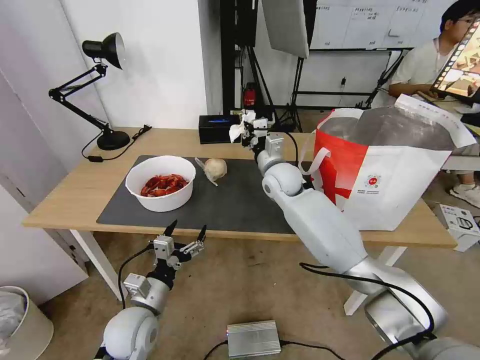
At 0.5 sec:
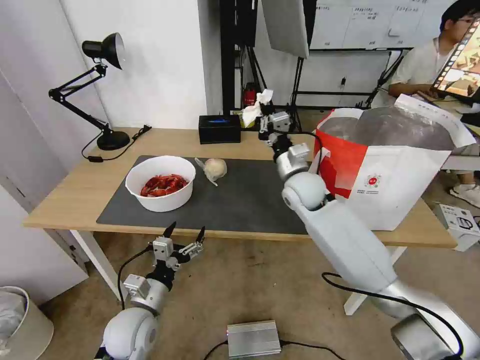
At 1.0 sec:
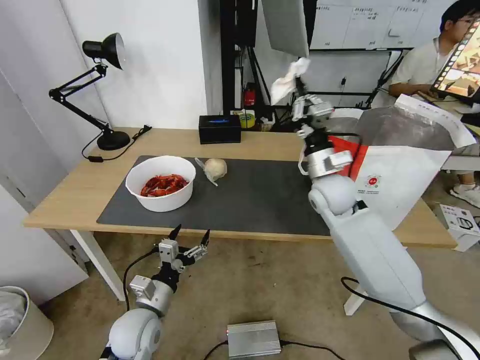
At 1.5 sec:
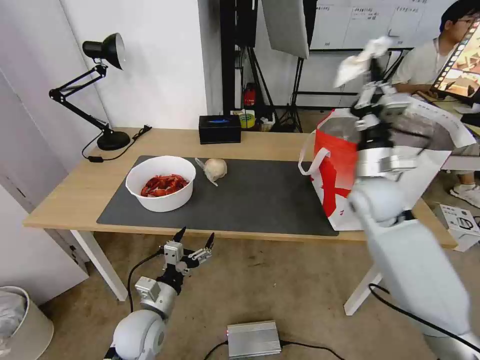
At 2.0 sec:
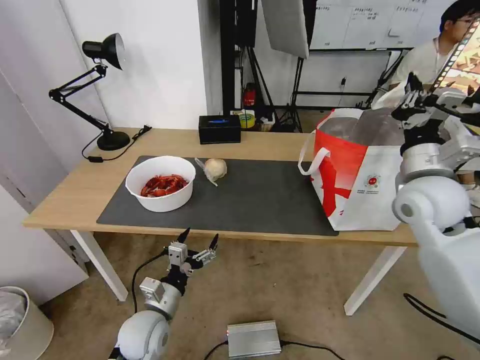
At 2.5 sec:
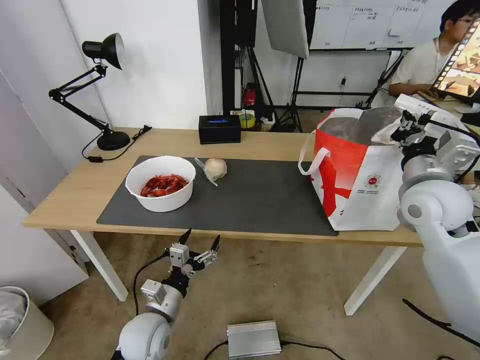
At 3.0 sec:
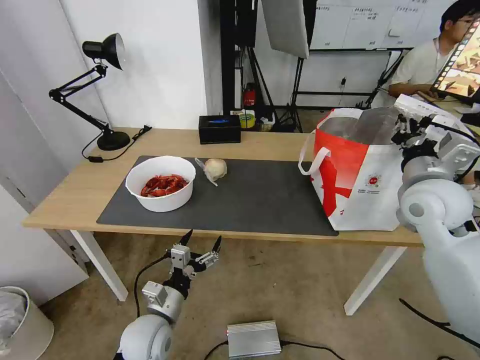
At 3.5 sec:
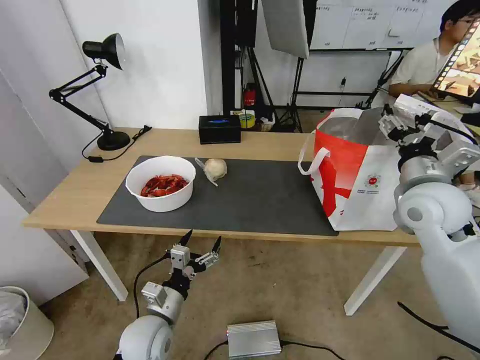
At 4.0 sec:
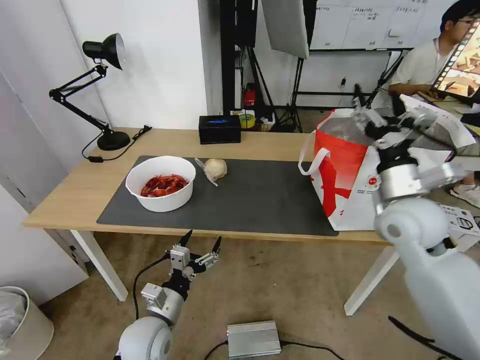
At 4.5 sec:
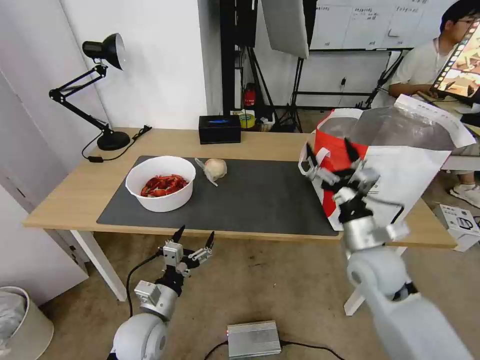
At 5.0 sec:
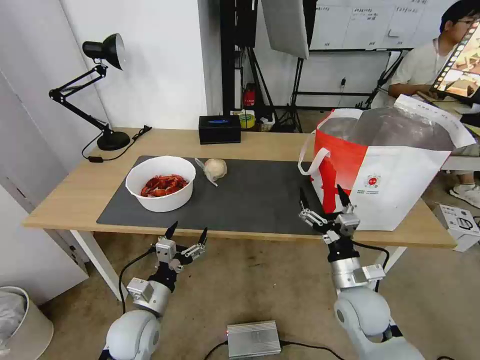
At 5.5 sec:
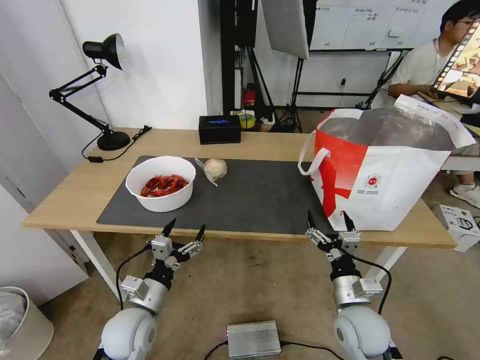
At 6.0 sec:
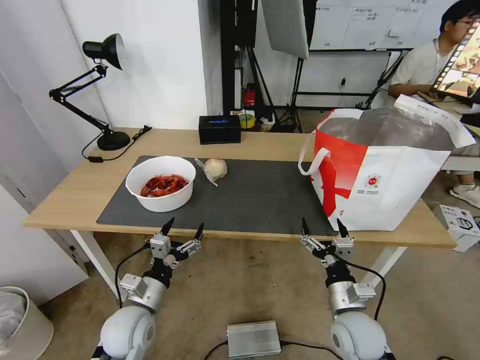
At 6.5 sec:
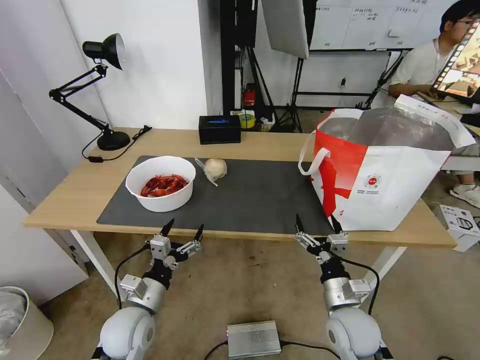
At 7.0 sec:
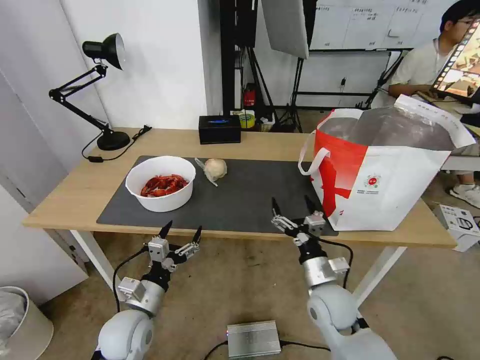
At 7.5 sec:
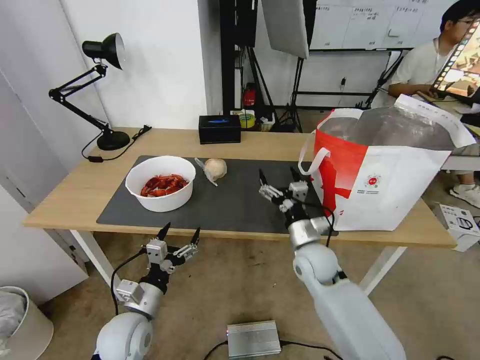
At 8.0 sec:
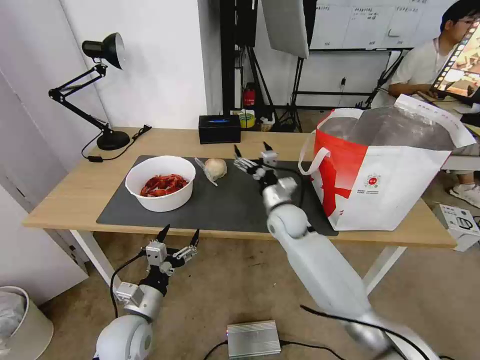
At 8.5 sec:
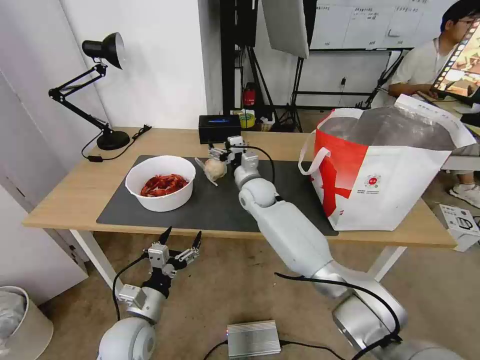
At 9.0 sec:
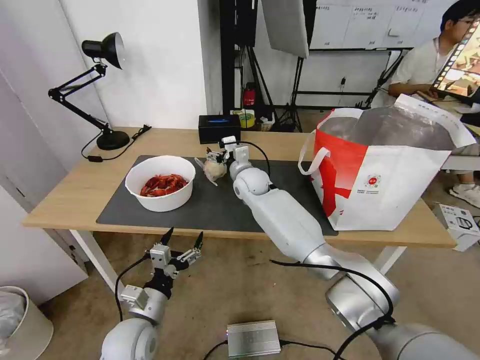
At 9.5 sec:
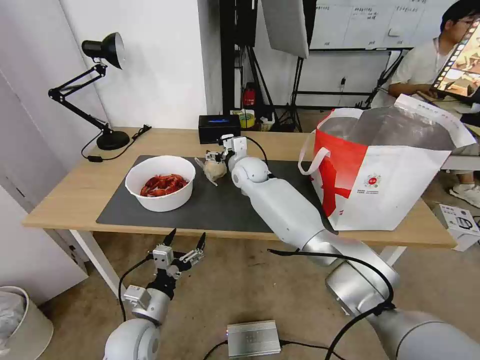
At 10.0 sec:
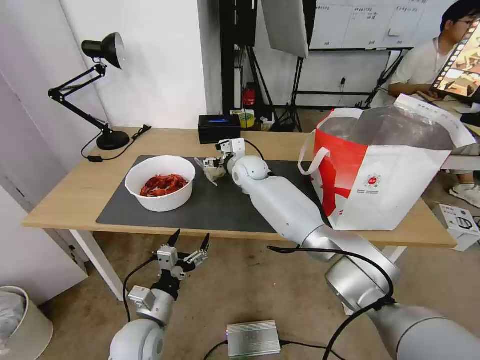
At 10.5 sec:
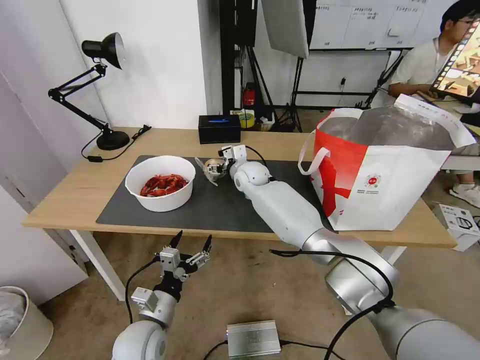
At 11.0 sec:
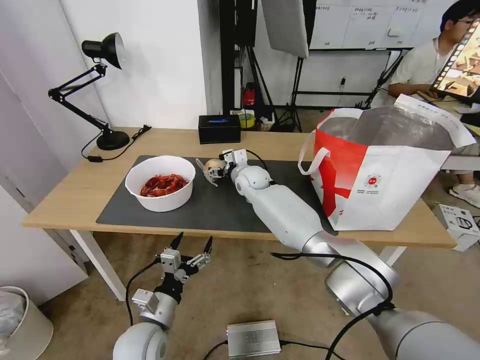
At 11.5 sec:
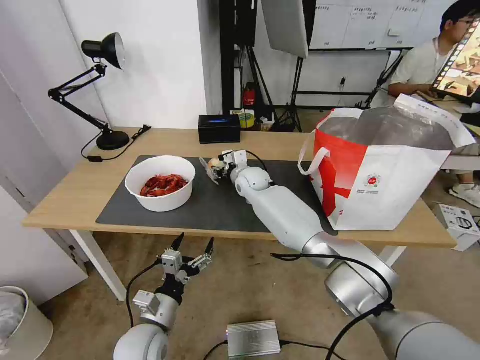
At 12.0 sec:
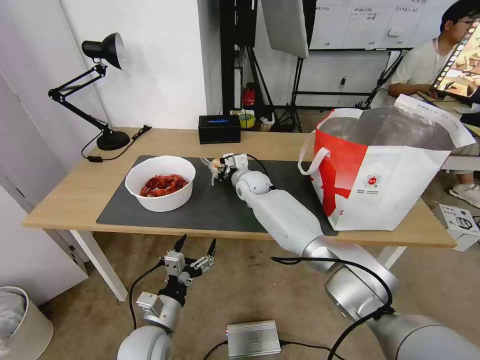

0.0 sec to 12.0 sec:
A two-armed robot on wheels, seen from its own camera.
Task of the whole recording: Pick up the trash from the table and place it into the takeout bag.
0.0 sec to 2.0 sec: The right gripper heads to the right, backward and upward, covering some 30 cm.
2.0 sec to 4.0 sec: The right gripper opens up.
4.0 sec to 6.0 sec: The right gripper is displaced downward and backward by roughly 25 cm.
6.0 sec to 8.0 sec: The right gripper shifts roughly 30 cm forward and to the left.
8.0 sec to 10.0 sec: The right gripper moves forward, to the left and upward, about 15 cm.
10.0 sec to 12.0 sec: The right gripper is displaced downward by approximately 5 cm, and closes.

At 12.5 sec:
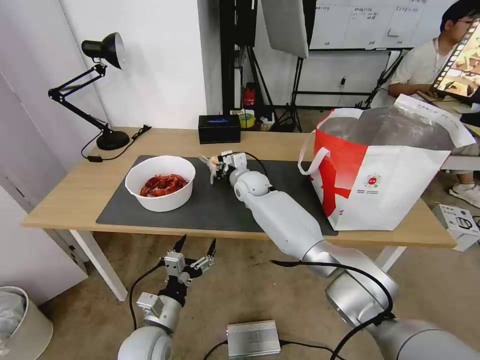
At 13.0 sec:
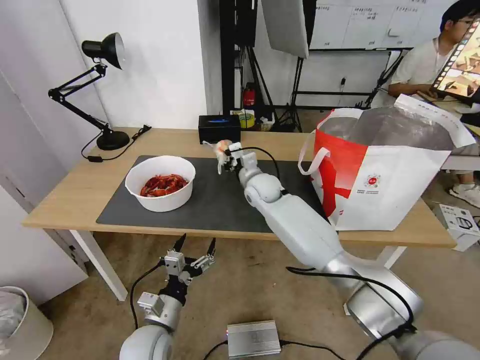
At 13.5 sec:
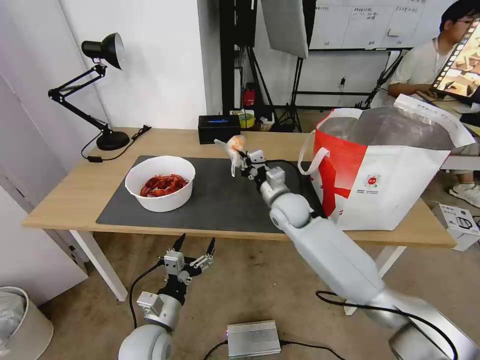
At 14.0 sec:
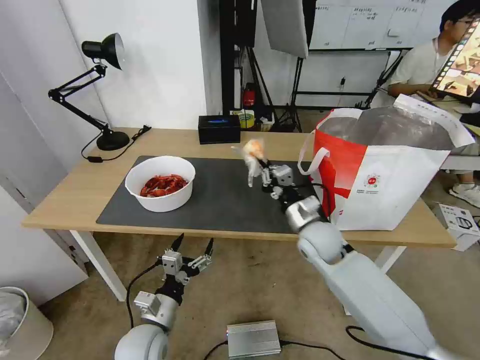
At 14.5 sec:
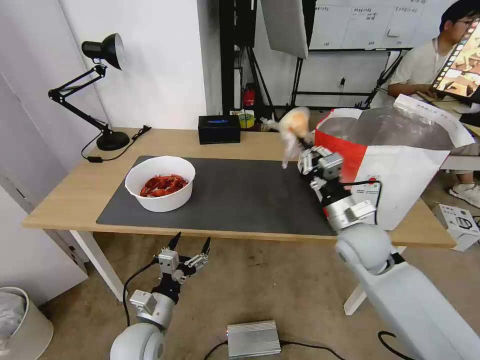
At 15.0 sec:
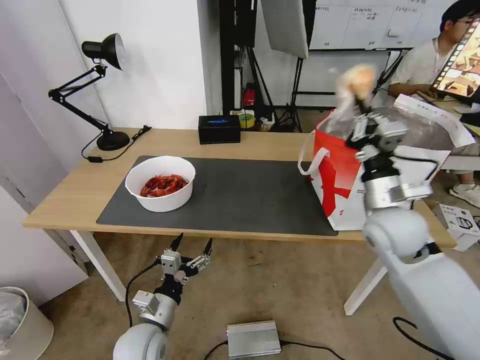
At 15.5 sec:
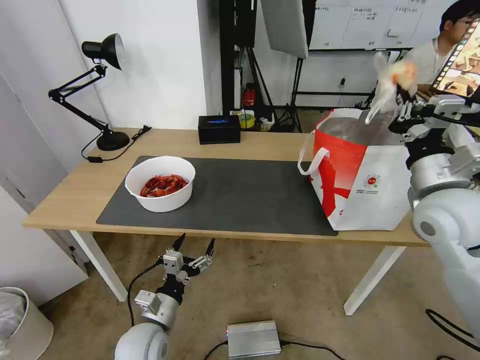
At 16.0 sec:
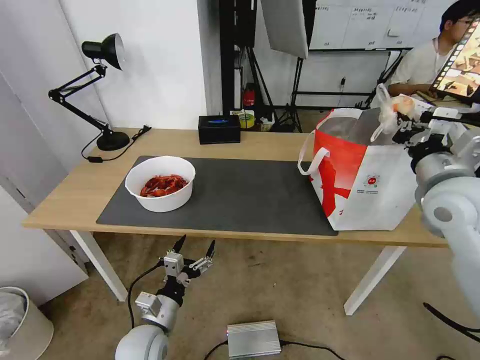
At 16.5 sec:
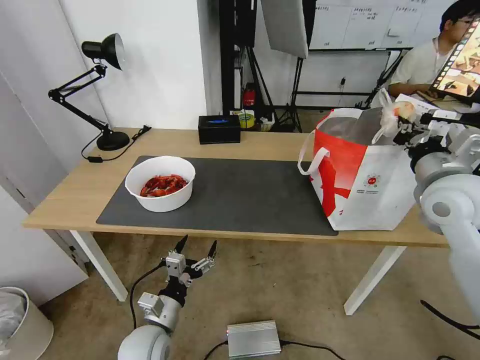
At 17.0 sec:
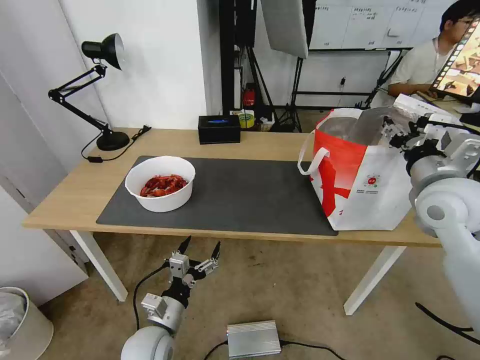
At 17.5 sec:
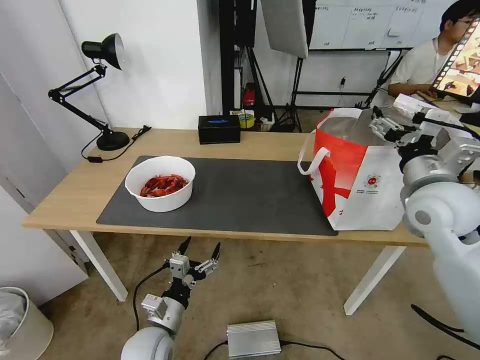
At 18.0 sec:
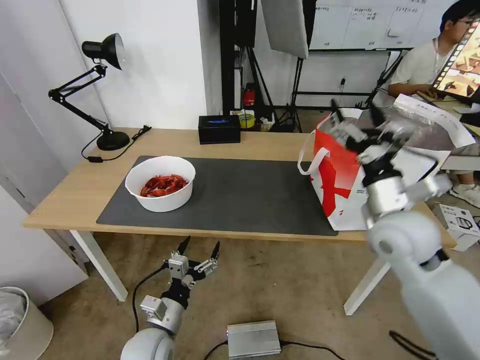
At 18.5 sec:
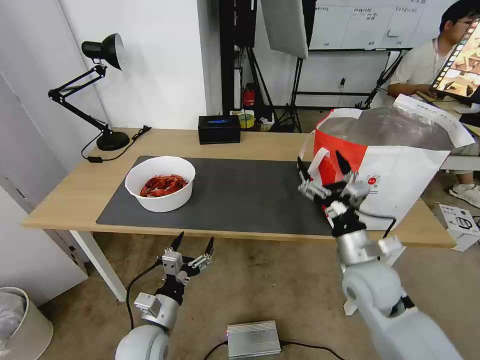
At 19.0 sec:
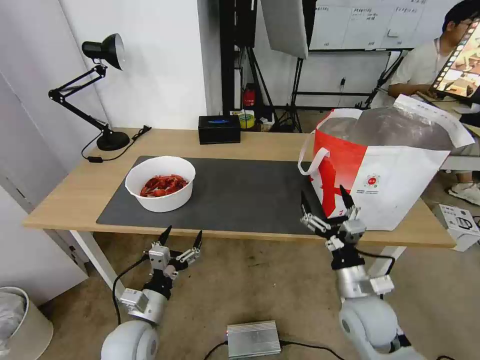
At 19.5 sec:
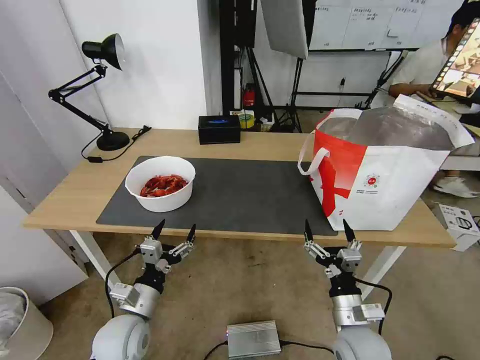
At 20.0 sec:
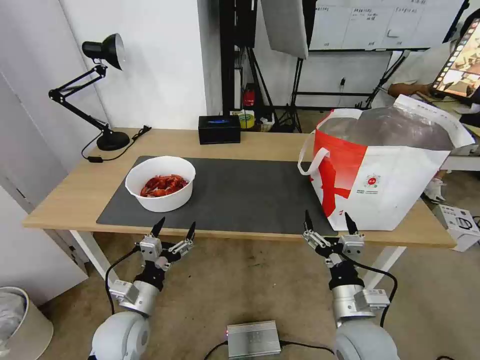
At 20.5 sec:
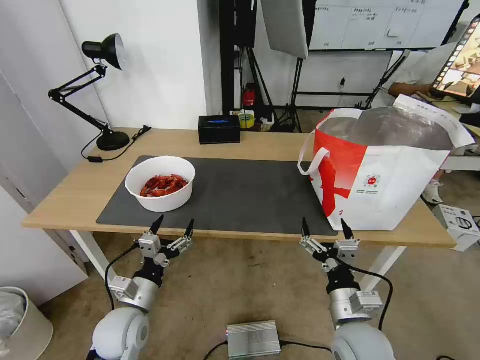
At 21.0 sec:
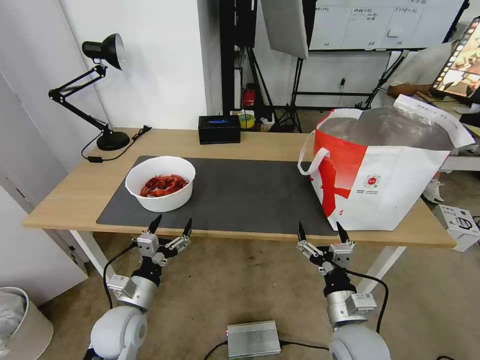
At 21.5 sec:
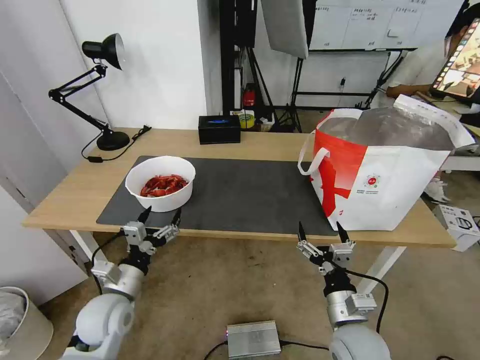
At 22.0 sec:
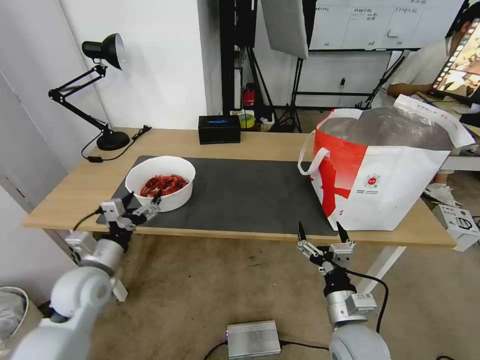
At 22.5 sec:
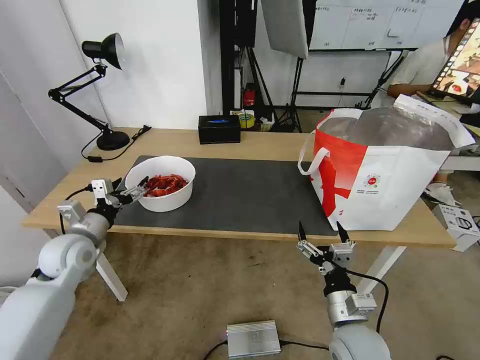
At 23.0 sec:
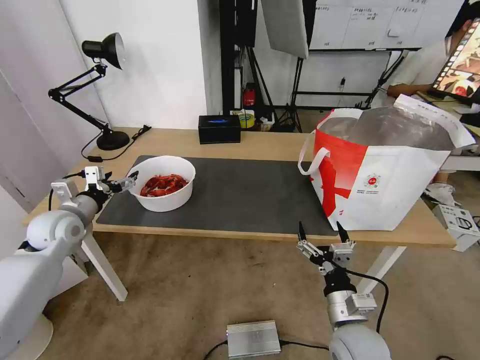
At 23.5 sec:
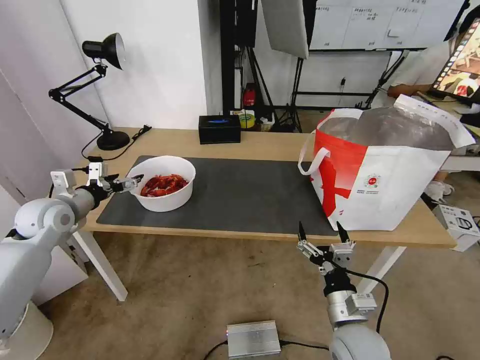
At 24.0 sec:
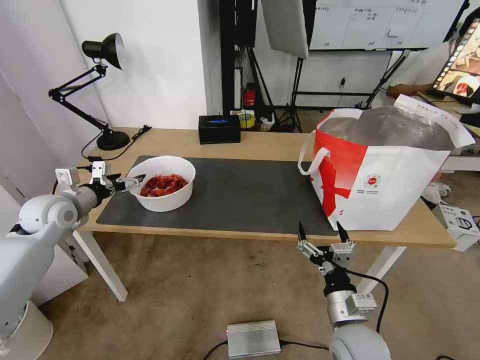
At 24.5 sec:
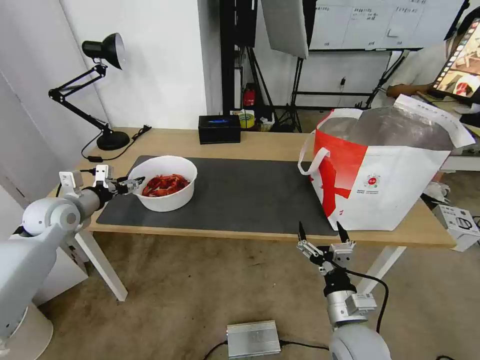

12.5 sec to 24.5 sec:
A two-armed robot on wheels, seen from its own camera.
Task of the whole recording: Pick up the trash from the table and place it into the takeout bag.
12.5 sec to 14.5 sec: The right gripper moves backward and to the right, some 30 cm.
14.5 sec to 16.5 sec: The right gripper moves upward and to the right, roughly 20 cm.
16.5 sec to 18.5 sec: The right gripper moves downward and to the left, roughly 20 cm, and opens up.
18.5 sec to 20.5 sec: The left gripper moves about 5 cm, while the right gripper goes approximately 15 cm backward and downward.
20.5 sec to 22.5 sec: The left gripper goes roughly 20 cm to the left, forward and upward.
22.5 sec to 24.5 sec: The left gripper is displaced forward by roughly 5 cm, and closes its fingers.

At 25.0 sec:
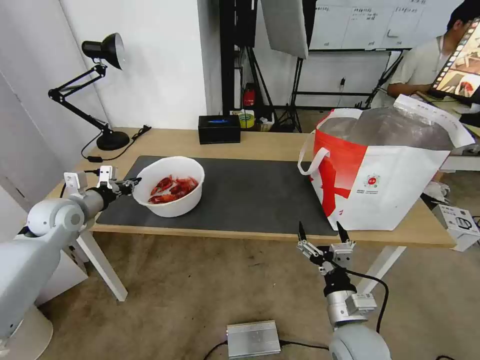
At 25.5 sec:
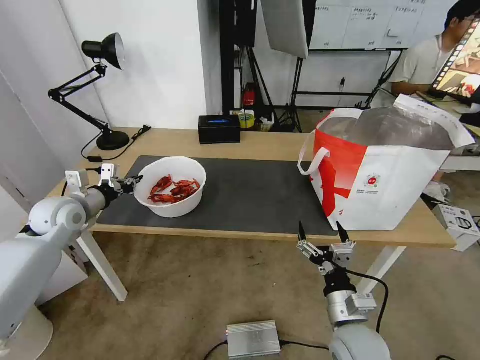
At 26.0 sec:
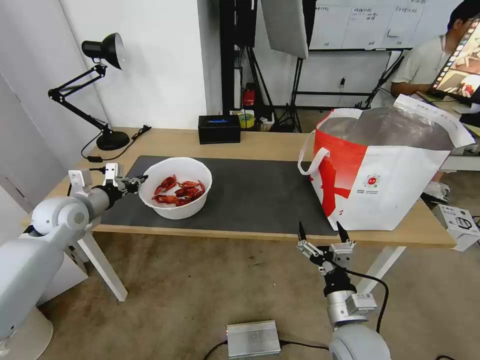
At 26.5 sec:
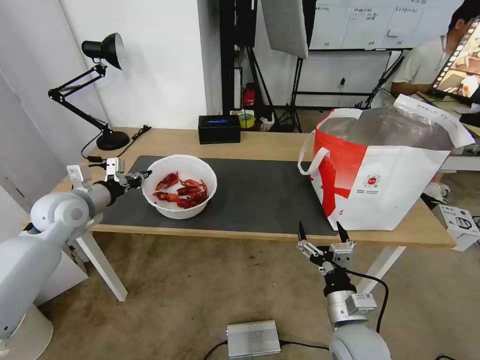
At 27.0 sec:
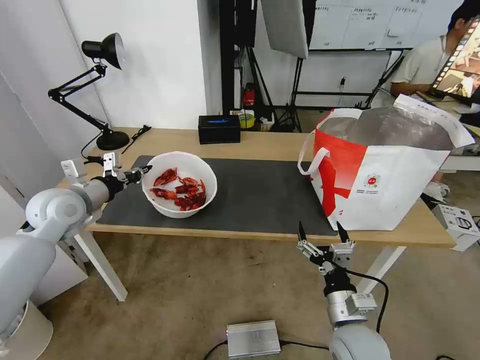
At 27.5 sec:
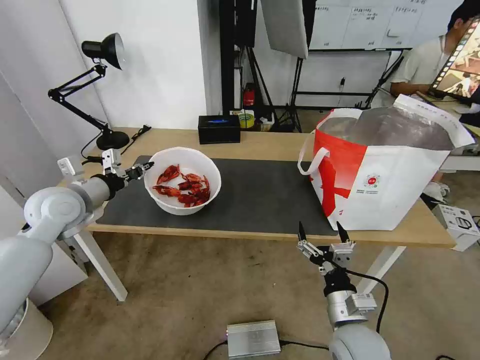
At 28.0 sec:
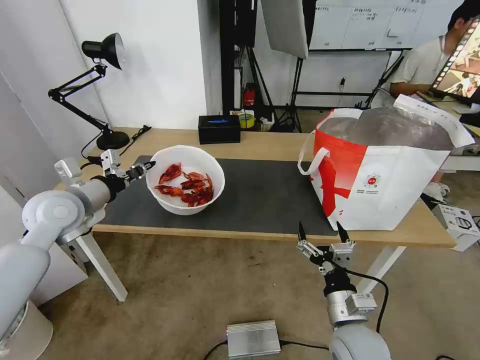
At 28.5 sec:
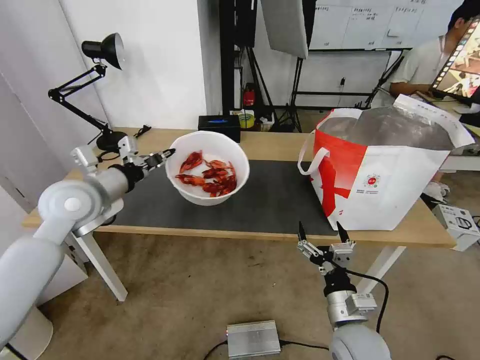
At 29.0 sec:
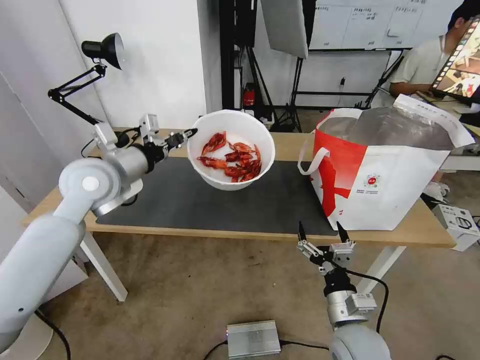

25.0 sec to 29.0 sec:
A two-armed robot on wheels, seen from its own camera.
Task of the whole recording: Pick up the trash from the table and place it into the takeout bag.
25.0 sec to 27.0 sec: The left gripper ends up roughly 5 cm from where it was.
27.0 sec to 29.0 sec: The left gripper is displaced to the right and upward by approximately 15 cm.
